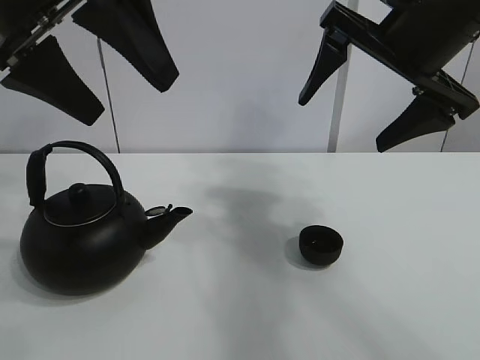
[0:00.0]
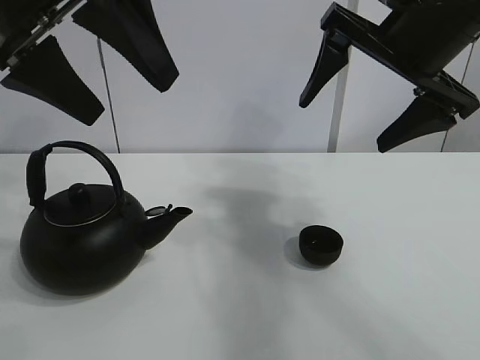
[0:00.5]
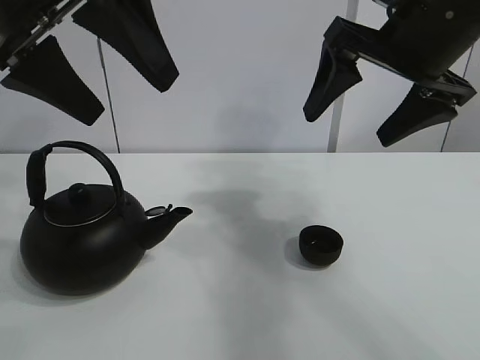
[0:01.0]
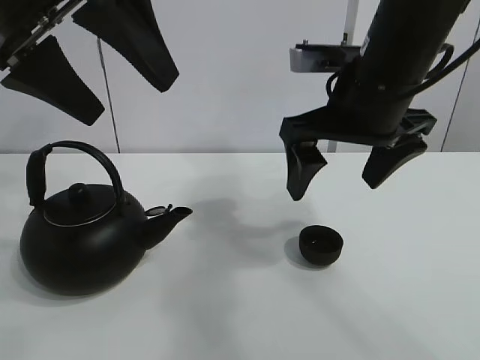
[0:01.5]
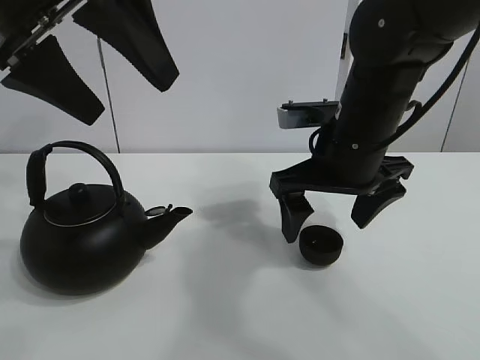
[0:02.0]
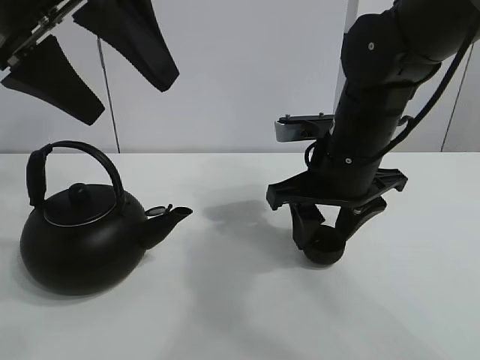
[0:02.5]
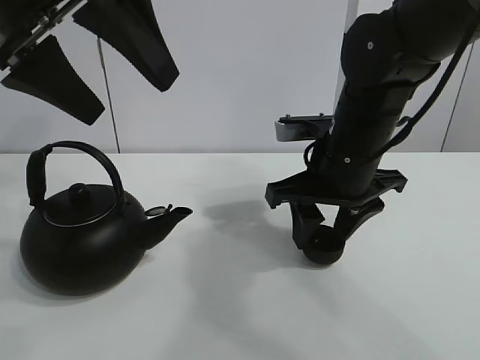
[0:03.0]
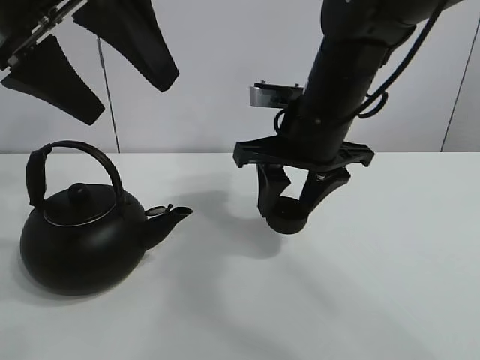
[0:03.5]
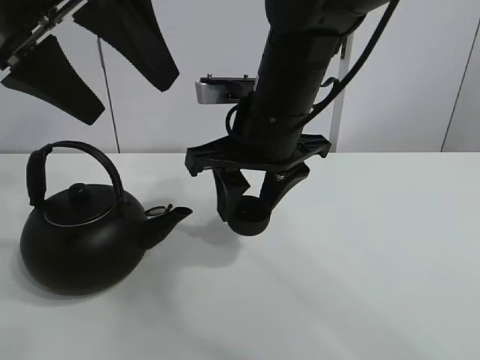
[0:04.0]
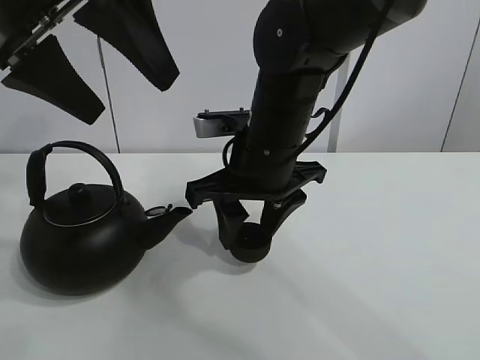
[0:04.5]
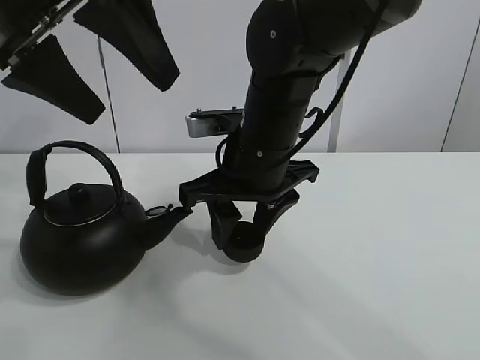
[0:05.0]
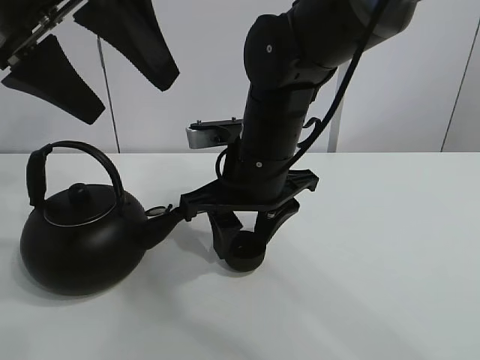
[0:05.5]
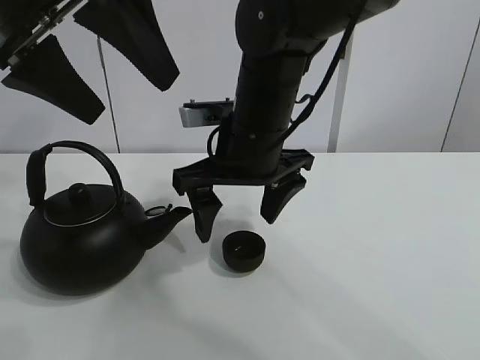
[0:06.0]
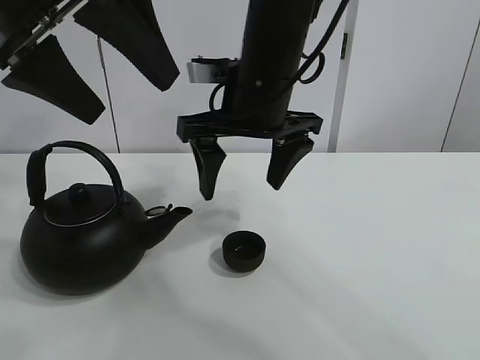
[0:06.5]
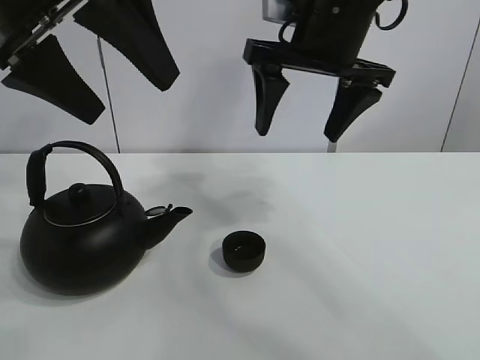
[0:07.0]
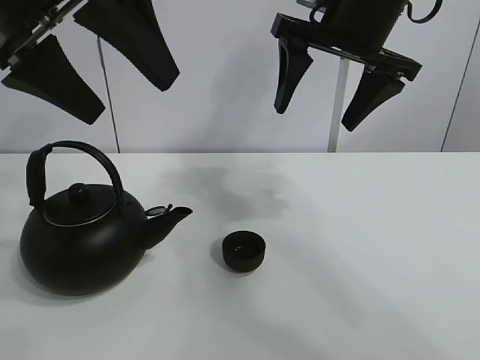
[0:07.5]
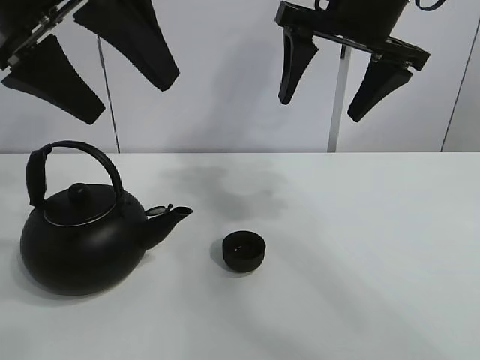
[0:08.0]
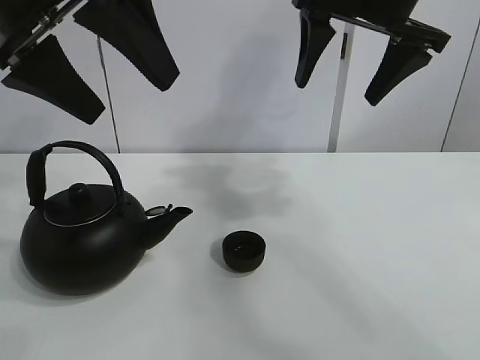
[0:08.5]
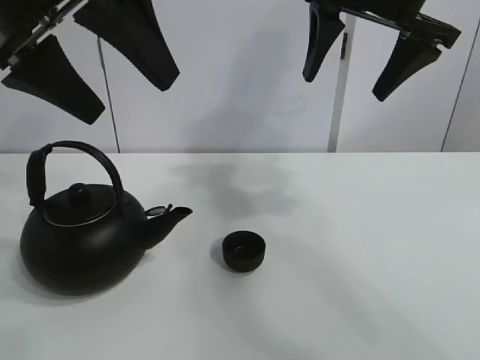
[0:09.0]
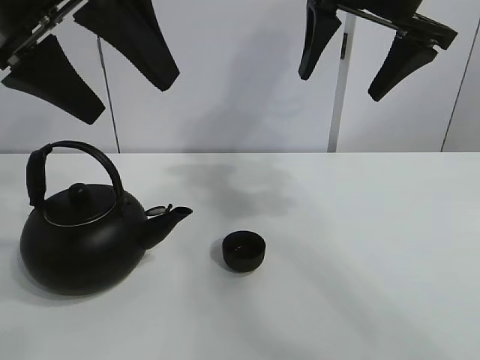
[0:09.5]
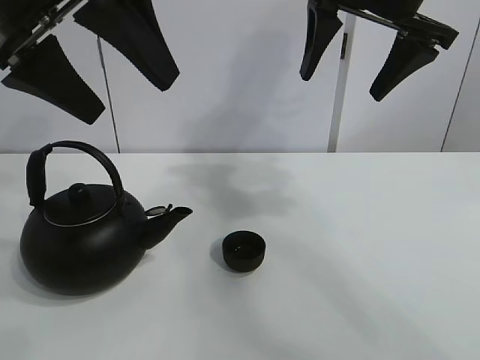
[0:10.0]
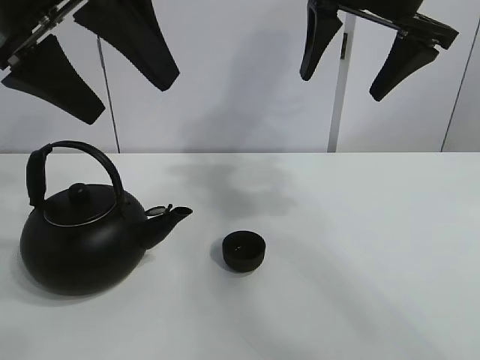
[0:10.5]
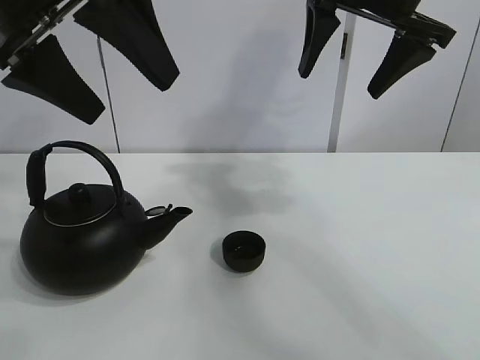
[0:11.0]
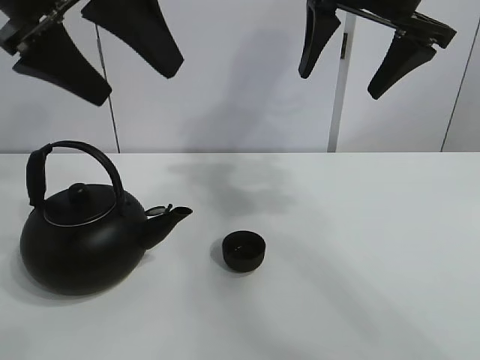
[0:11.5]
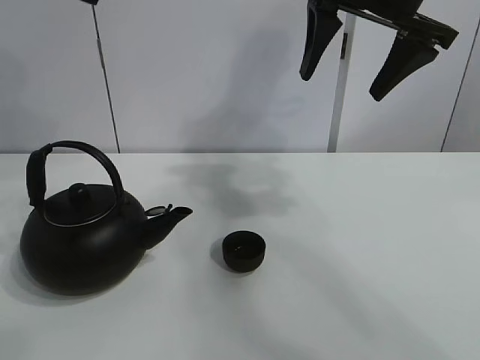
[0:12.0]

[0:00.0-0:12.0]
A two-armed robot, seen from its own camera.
Task of the whole recording: pour tea into the teacup.
Step, 0:00.0 to 0:02.5: Pick up the teacup with the right gripper.
Step, 0:03.0 to 0:05.5: Place the teacup in the center of view with the right gripper.
0:02.0 to 0:04.0: The right gripper goes some 10 cm to the left, and closes its fingers.
0:04.0 to 0:06.0: The right gripper opens up.
0:06.0 to 0:08.0: The right gripper is displaced upward and to the right by roughly 15 cm.
0:08.0 to 0:10.0: There are only small adjustments of the grippers.

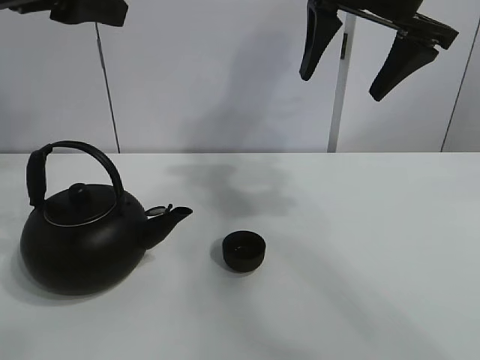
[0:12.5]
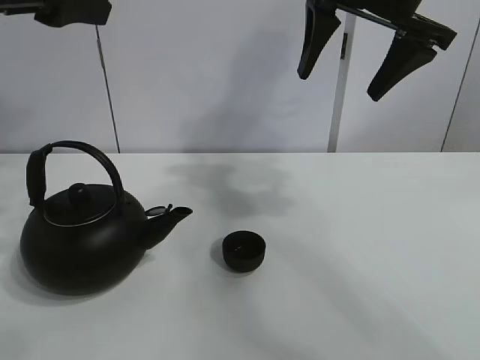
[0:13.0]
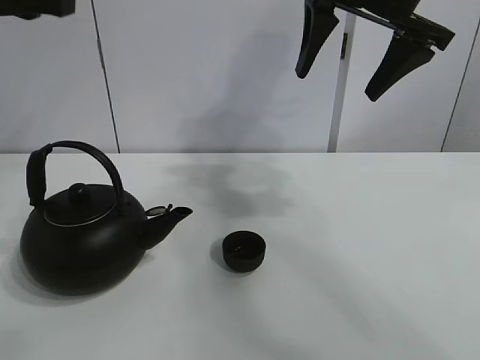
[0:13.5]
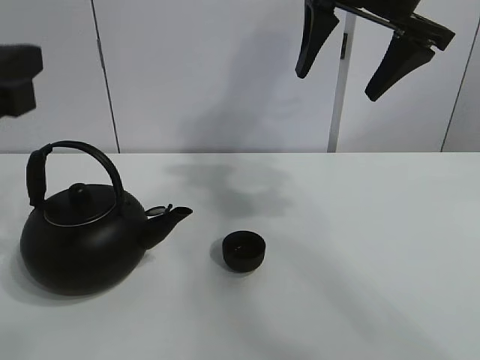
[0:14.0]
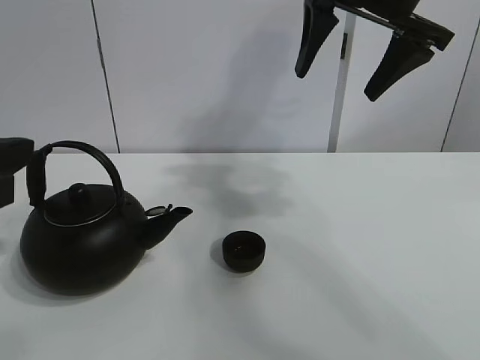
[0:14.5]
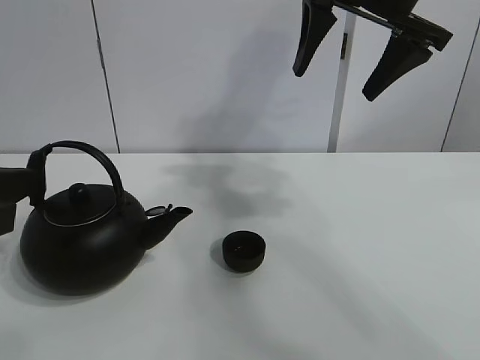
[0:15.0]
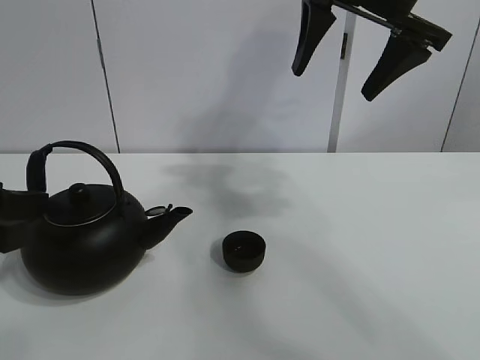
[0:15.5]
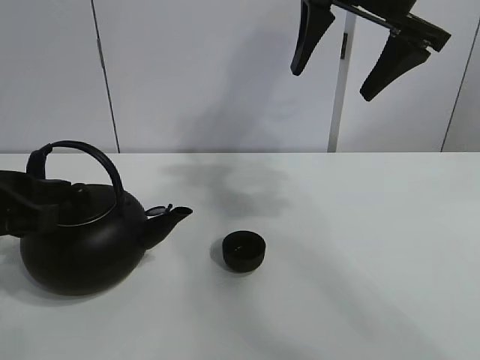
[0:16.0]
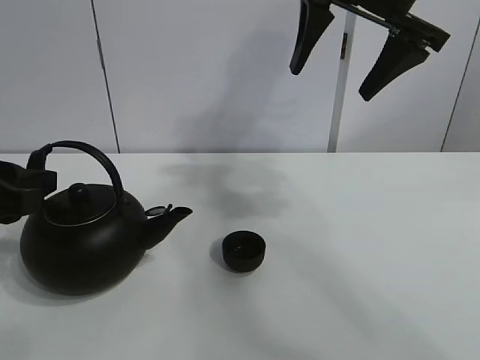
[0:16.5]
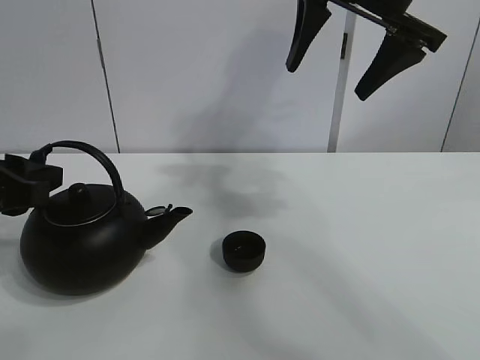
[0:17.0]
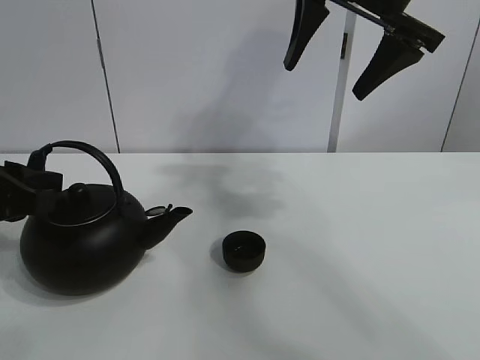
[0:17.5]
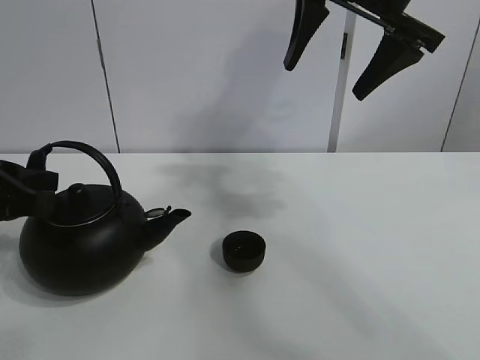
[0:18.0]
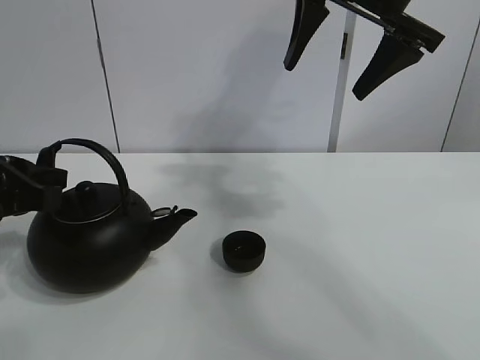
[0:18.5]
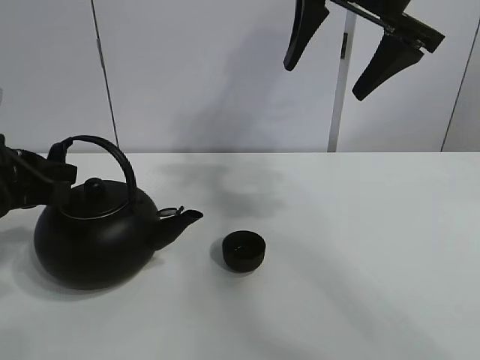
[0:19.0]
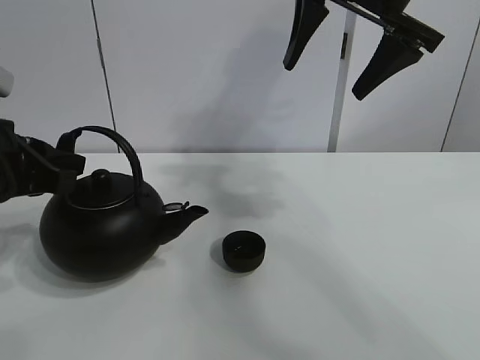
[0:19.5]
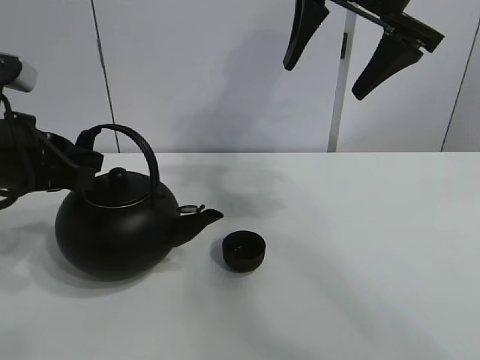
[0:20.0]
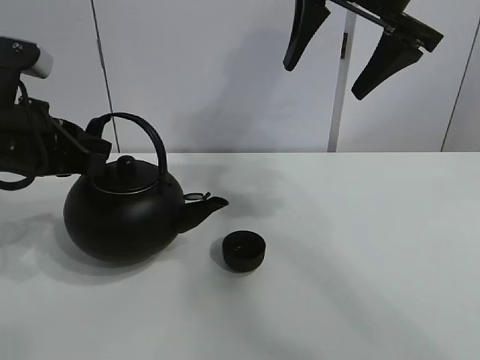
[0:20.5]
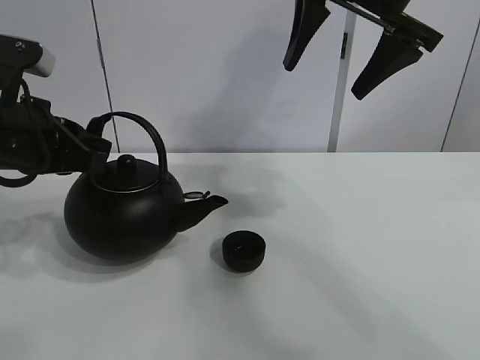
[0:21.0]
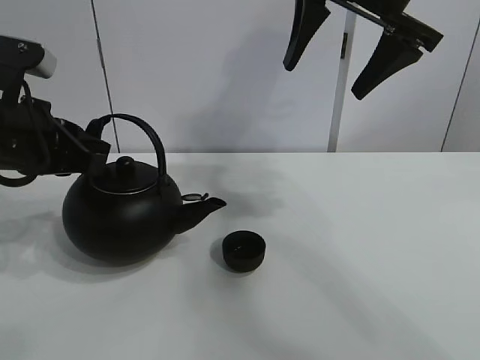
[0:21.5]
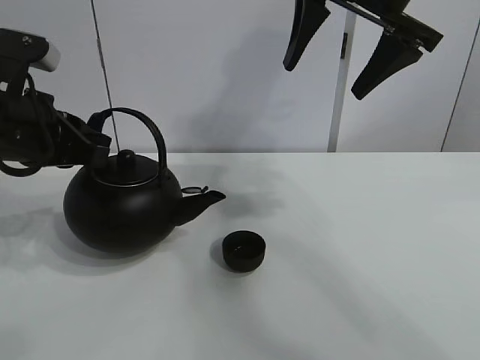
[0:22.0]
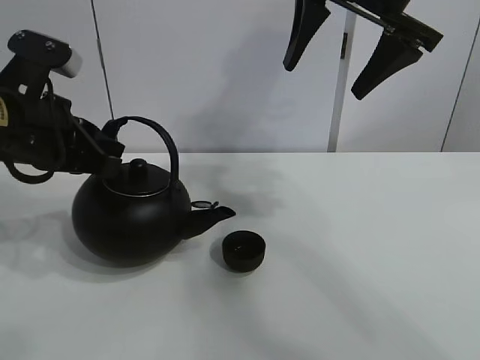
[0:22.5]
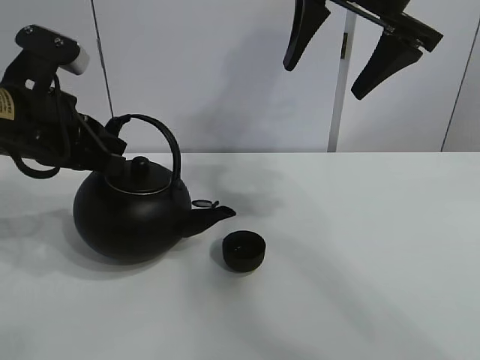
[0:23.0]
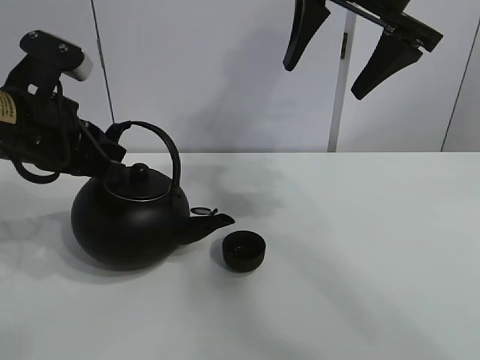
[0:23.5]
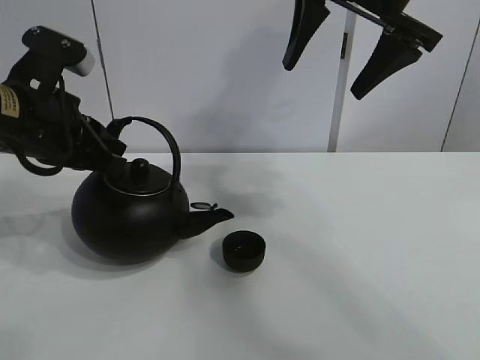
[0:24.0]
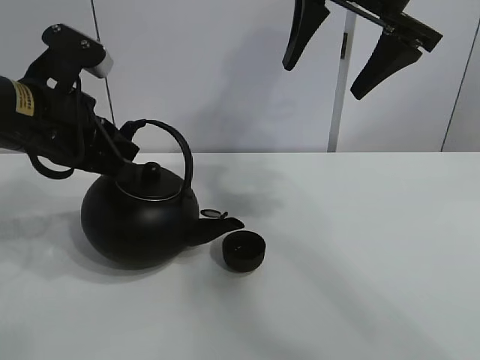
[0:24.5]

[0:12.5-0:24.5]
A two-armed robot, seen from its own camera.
Task of the whole recording: pour tea into the teacup.
Step, 0:12.5 to 0:18.5: Pick up the teapot with the left gripper.
0:12.5 to 0:14.5: The left gripper is displaced downward and backward by some 15 cm.
0:14.5 to 0:16.5: The left gripper moves forward, roughly 5 cm.
0:16.5 to 0:18.5: The left gripper closes its fingers.
0:18.5 to 0:20.5: The left gripper changes place by approximately 5 cm.
0:20.5 to 0:24.5: The grippers make only small movements.

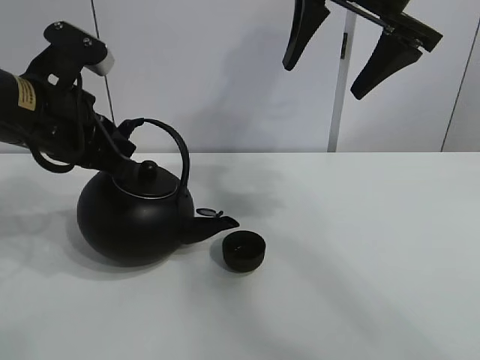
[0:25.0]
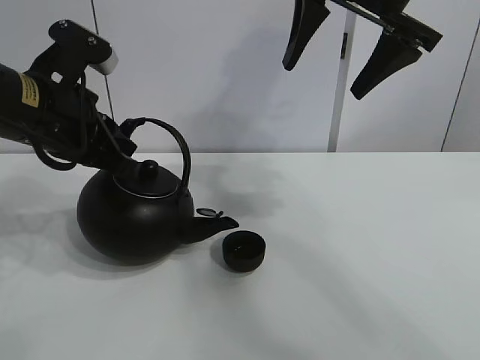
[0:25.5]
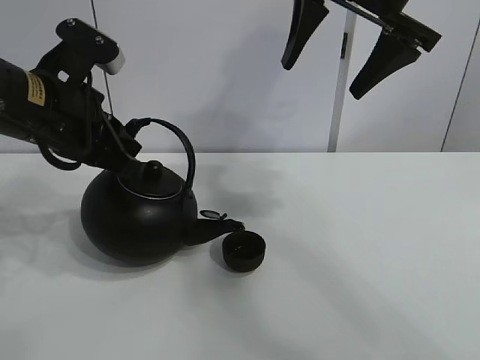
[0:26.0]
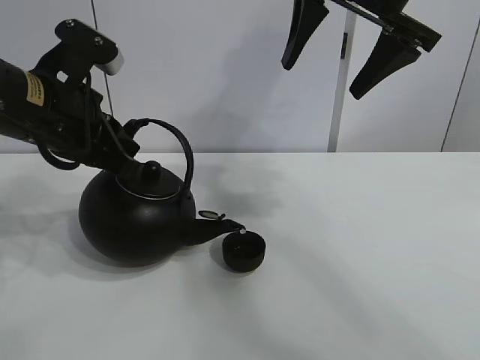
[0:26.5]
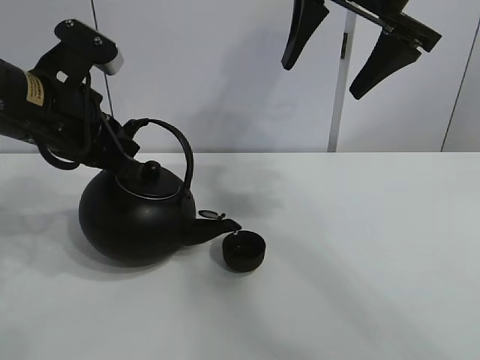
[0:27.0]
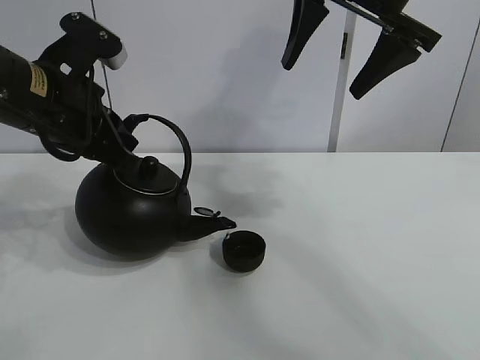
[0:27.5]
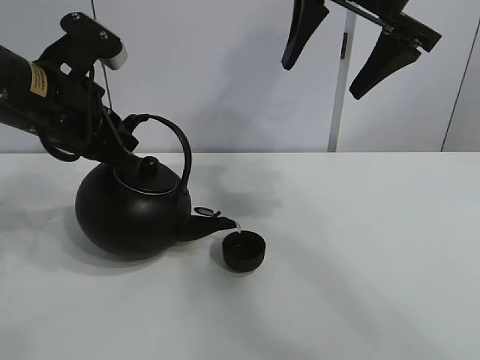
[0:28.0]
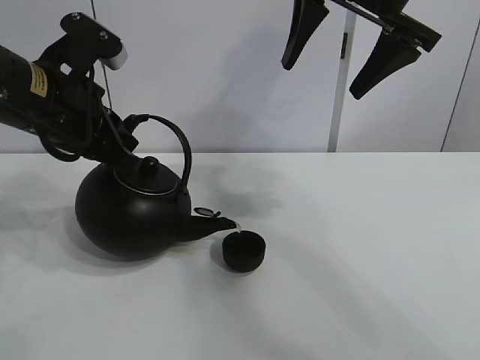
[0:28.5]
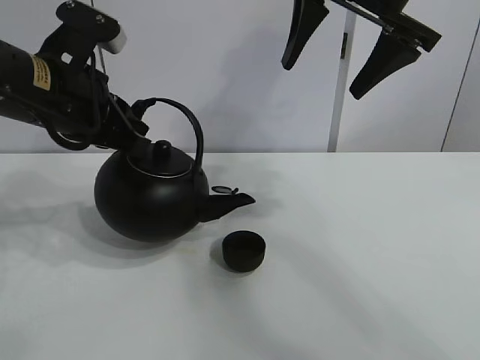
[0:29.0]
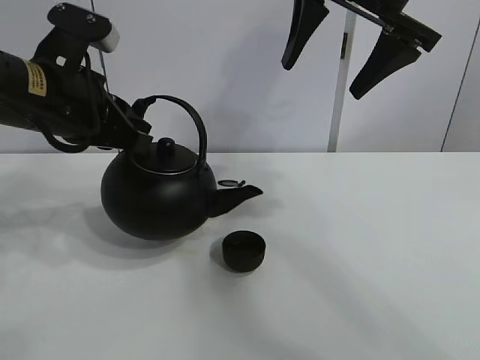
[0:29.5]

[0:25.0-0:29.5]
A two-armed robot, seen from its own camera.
Task of the whole recording: pour tea into the teacup.
Step, 0:25.0 to 0:29.0: Pour tea into the teacup with the left gripper.
0:25.0 to 0:27.0: The two grippers keep their place.
0:27.0 to 0:29.5: There are only small adjustments of the grippers.
